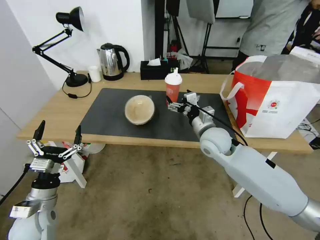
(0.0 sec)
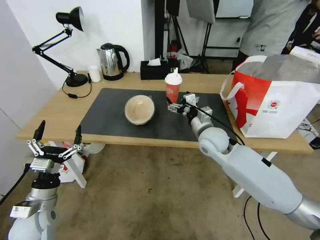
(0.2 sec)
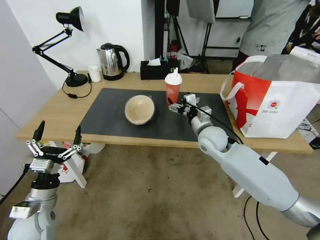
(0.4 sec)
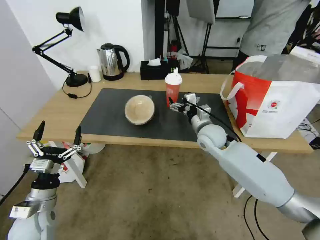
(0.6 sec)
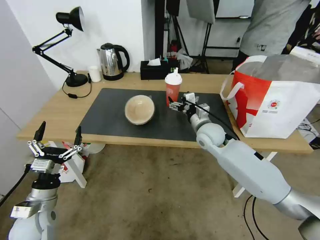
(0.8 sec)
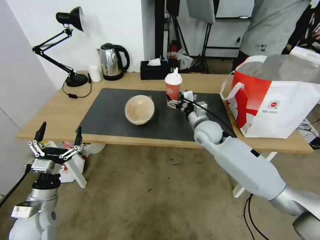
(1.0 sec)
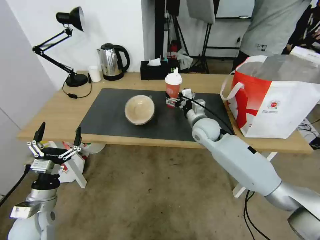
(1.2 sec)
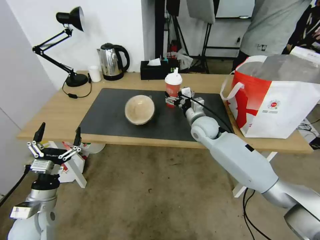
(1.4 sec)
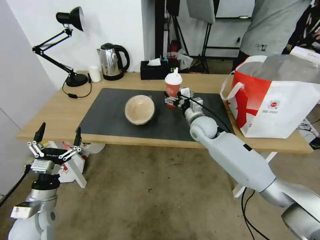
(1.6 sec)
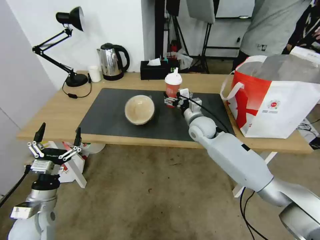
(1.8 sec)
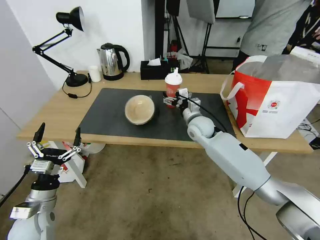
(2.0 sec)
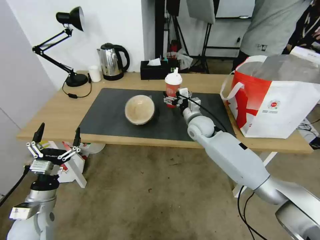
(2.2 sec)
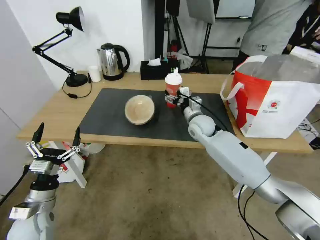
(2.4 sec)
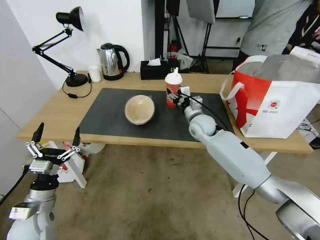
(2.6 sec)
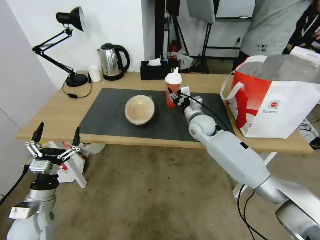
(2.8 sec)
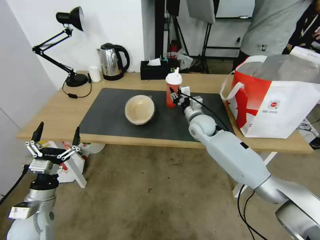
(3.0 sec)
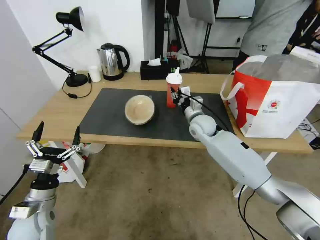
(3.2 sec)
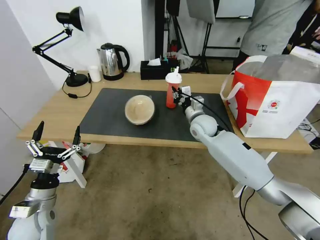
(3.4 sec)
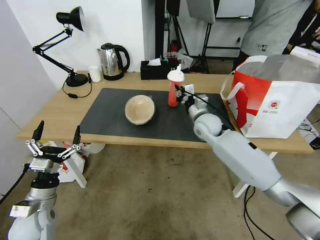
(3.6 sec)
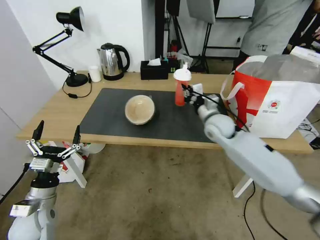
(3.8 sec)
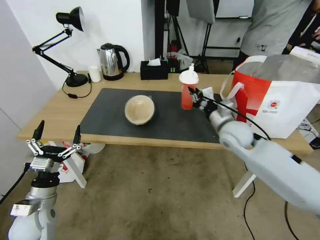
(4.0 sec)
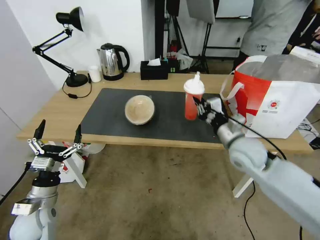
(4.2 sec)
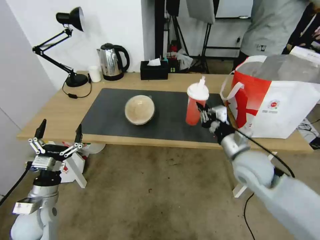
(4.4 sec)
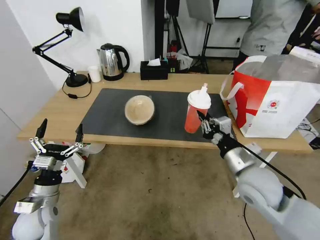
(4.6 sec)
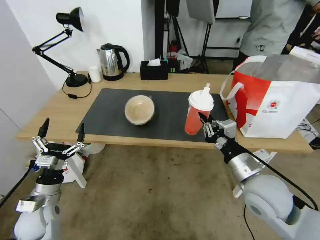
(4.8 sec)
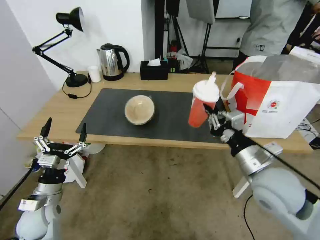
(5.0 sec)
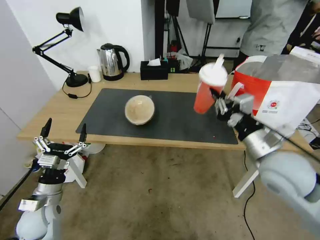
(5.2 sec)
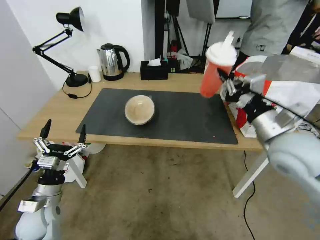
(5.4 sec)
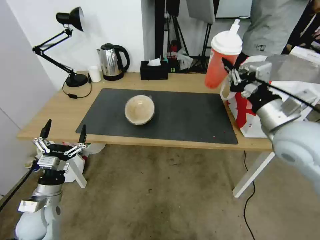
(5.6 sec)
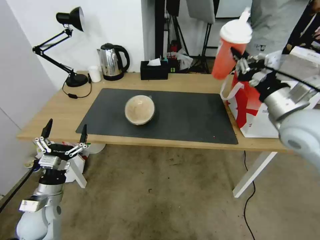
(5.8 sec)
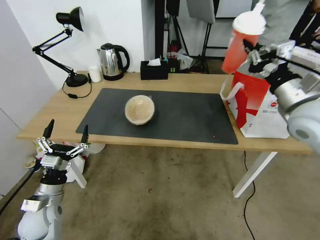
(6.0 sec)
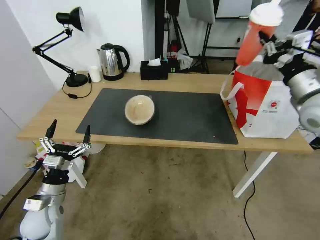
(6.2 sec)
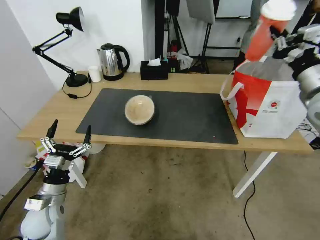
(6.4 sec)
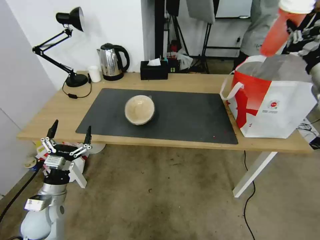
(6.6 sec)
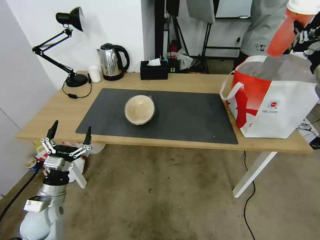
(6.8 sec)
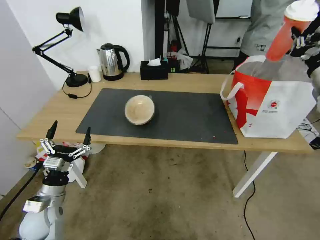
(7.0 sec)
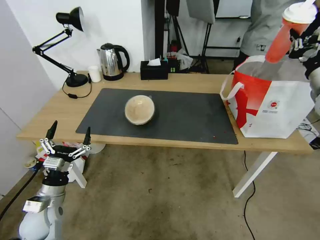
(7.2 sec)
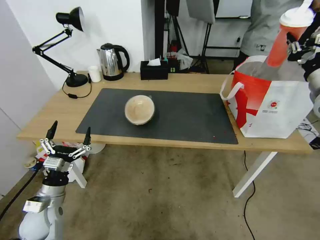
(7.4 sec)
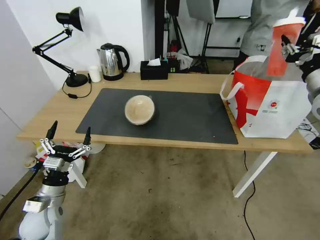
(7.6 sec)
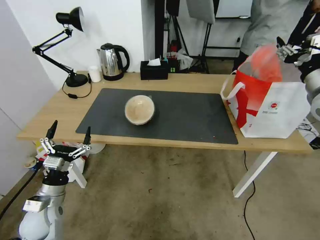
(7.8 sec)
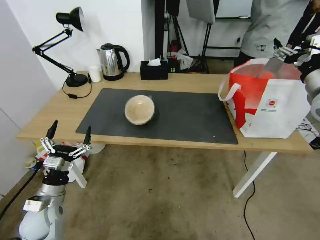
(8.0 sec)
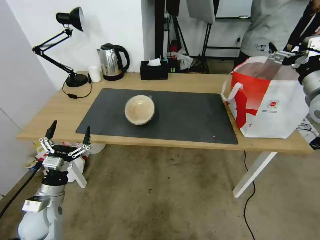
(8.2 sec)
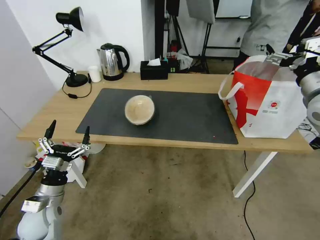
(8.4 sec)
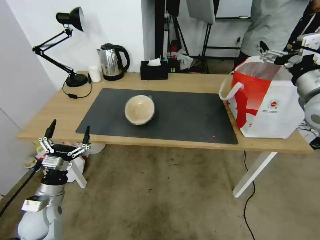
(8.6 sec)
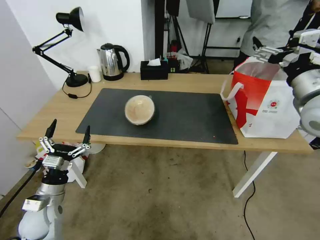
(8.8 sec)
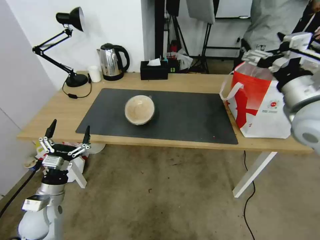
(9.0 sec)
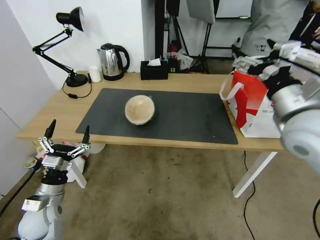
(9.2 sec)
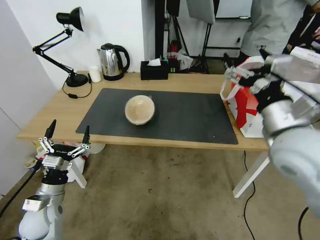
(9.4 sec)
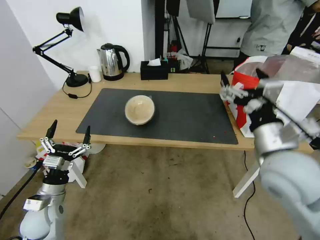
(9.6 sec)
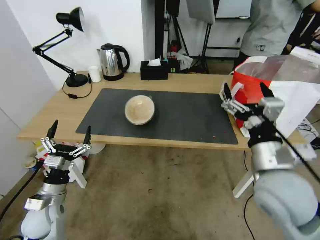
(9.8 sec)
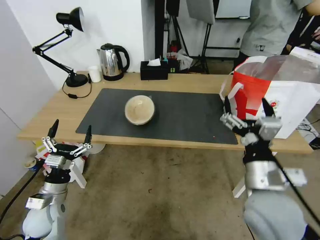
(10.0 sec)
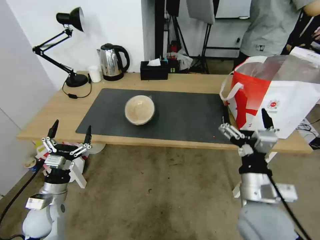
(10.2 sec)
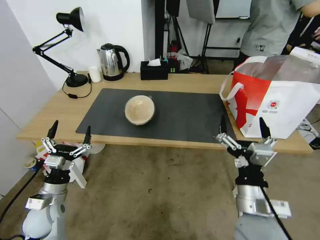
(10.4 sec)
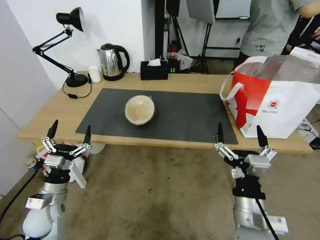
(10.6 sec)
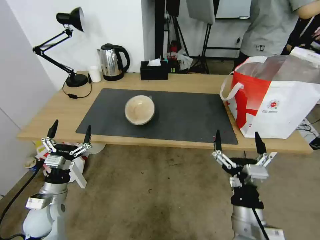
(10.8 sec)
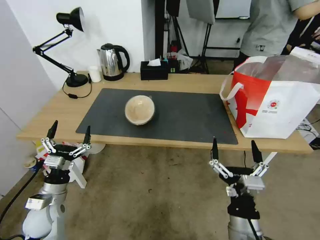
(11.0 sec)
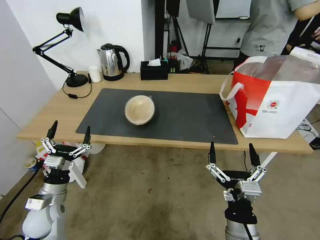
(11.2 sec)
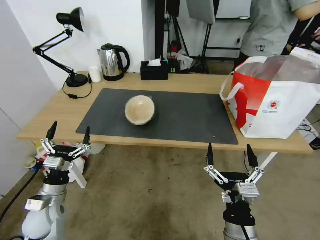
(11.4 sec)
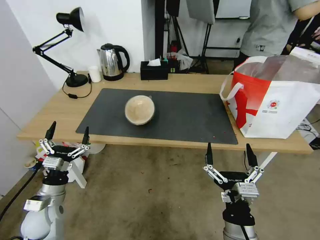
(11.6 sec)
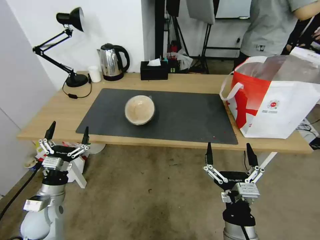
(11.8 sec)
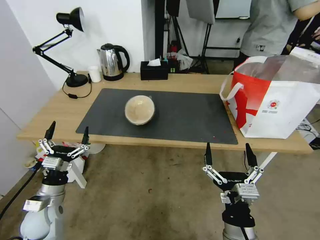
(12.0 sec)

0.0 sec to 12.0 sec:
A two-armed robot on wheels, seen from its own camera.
Task of the whole recording: Pick up the trash from the table and place it into the takeout bag.
0.0 sec to 1.6 sec: The right gripper heads forward, covering approximately 10 cm.
1.6 sec to 3.0 sec: The right gripper closes its fingers.
3.0 sec to 4.4 sec: The right gripper moves backward and to the right, roughly 20 cm.
4.4 sec to 6.0 sec: The right gripper heads upward and to the right, covering some 20 cm.
6.0 sec to 7.6 sec: The right gripper is displaced to the right and forward by approximately 10 cm.
7.6 sec to 9.0 sec: The right gripper heads to the left and backward, covering some 15 cm, and opens.
9.0 sec to 10.4 sec: The right gripper moves downward, backward and to the left, about 30 cm.
10.4 sec to 12.0 sec: The right gripper is displaced backward and downward by about 10 cm.

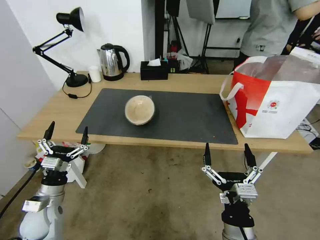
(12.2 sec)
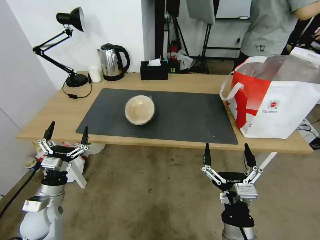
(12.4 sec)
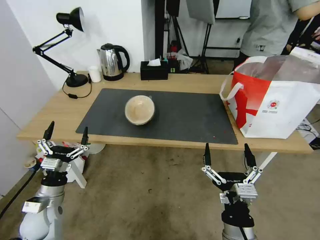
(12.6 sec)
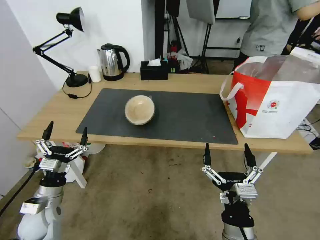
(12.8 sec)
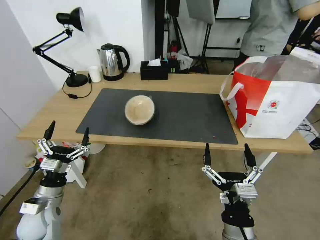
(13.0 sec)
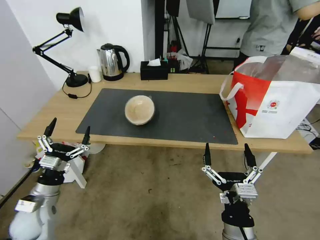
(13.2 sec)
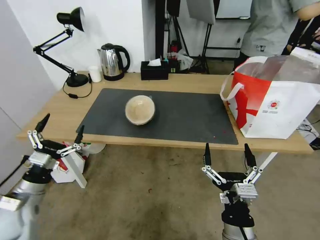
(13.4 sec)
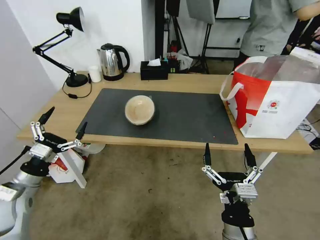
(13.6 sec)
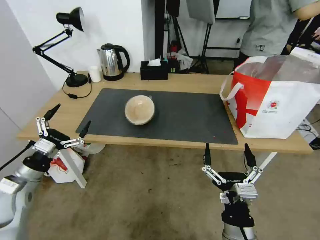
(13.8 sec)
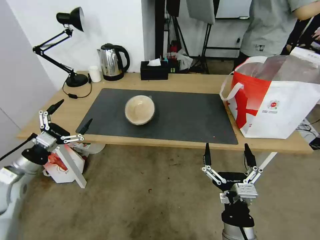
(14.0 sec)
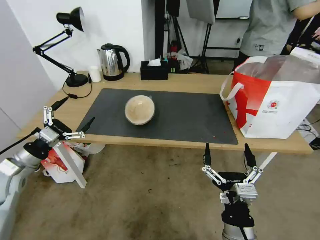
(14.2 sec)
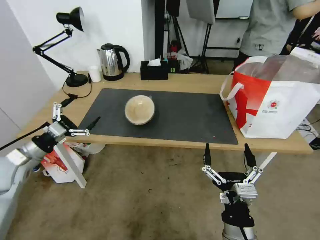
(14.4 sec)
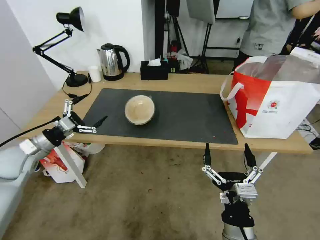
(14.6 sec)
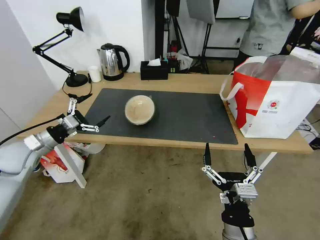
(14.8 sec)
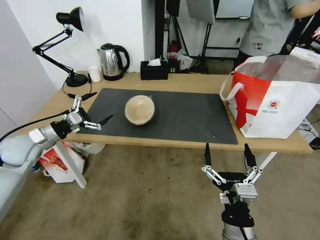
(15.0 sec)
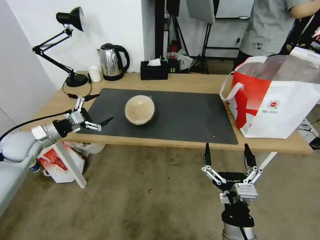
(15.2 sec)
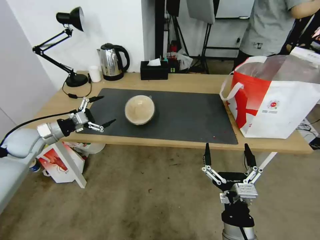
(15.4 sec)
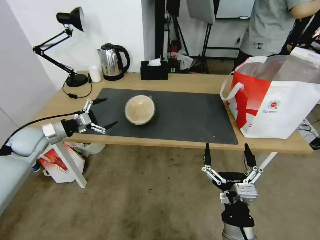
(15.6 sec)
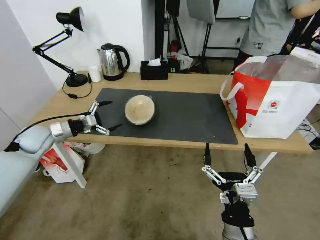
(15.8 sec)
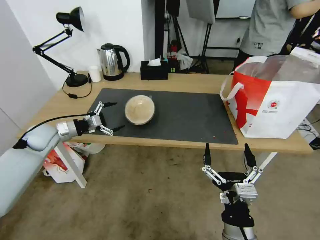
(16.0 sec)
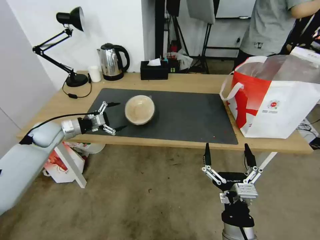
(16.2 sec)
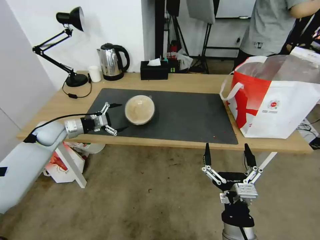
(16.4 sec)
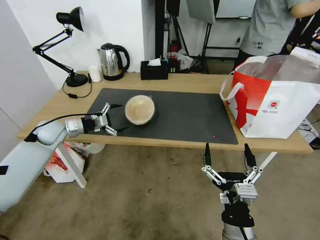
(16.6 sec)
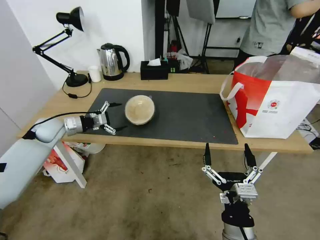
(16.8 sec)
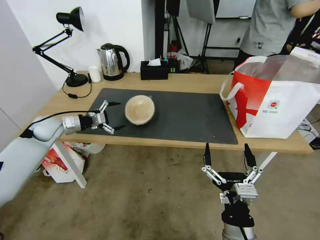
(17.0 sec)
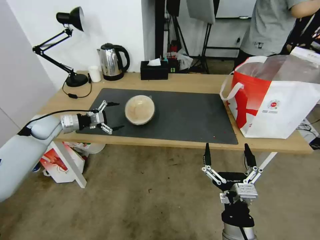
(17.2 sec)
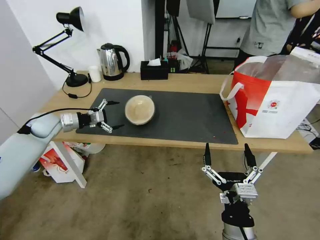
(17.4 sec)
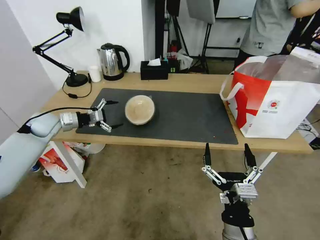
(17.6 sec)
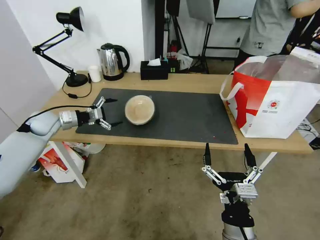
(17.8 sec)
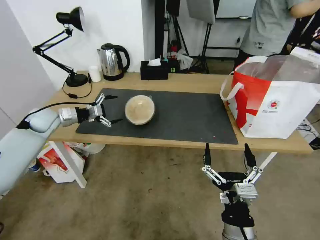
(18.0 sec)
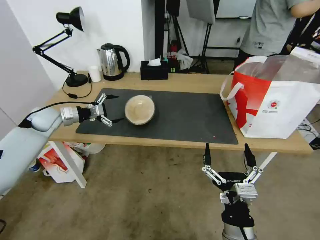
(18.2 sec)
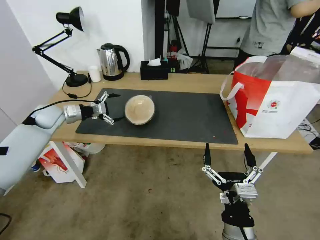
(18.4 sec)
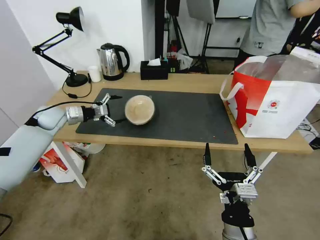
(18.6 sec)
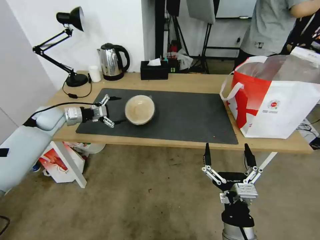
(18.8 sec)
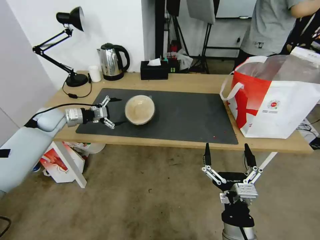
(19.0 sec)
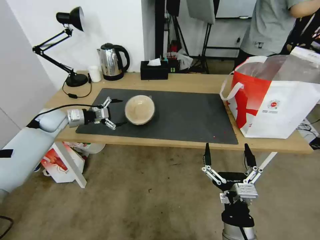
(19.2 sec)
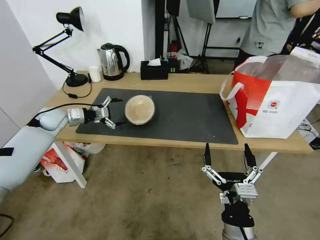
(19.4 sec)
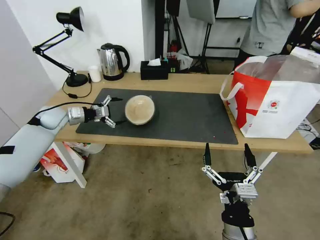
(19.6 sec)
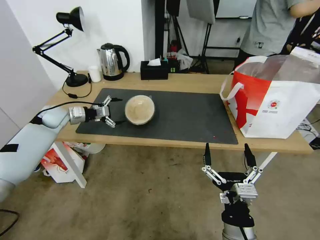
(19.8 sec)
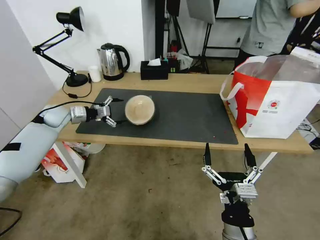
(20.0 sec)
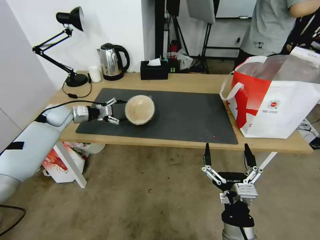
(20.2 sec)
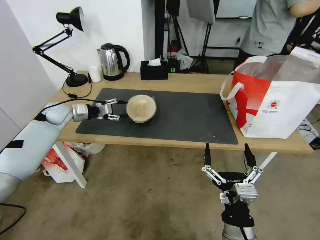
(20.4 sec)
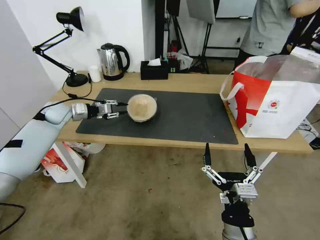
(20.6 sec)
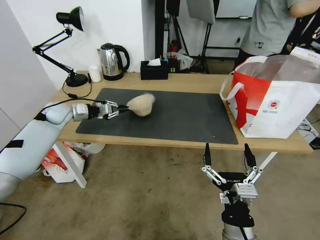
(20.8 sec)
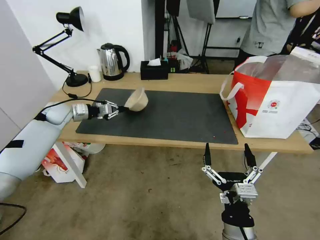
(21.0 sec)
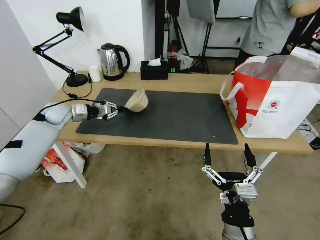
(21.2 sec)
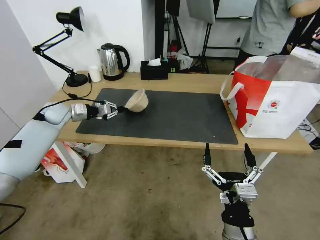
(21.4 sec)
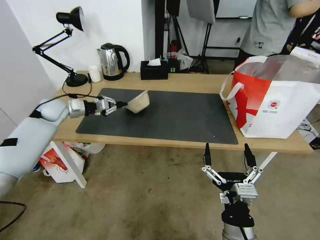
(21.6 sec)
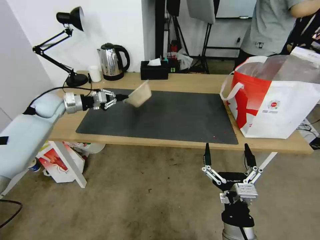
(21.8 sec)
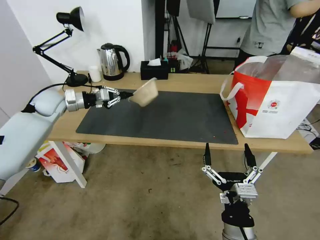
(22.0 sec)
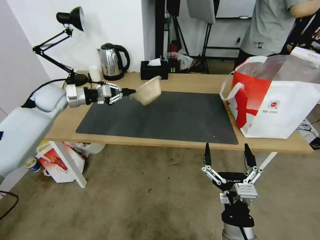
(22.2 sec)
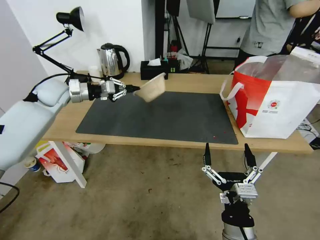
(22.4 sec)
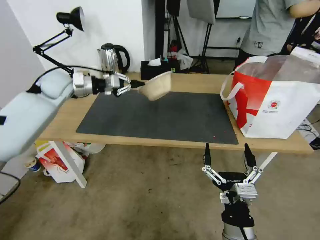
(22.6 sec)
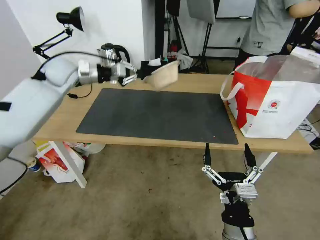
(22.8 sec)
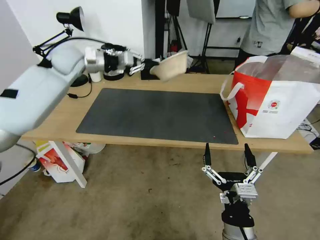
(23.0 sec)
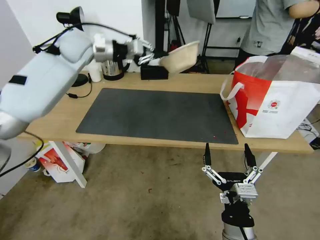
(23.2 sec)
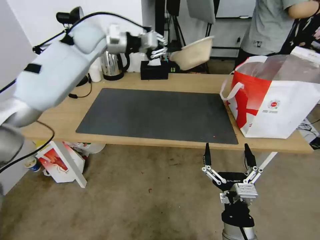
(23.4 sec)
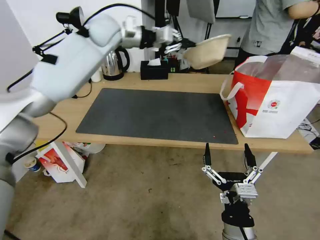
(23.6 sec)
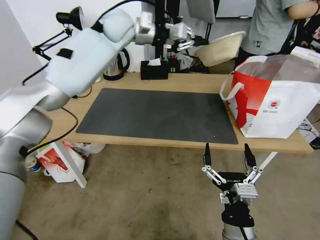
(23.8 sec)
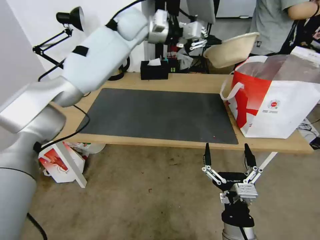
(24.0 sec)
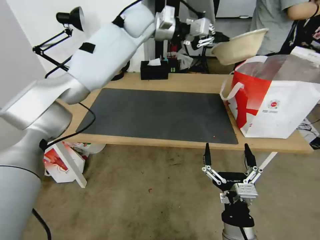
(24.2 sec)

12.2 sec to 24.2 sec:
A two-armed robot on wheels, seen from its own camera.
Task of the whole recording: Pick up the trash from the table and place it into the takeout bag.
12.2 sec to 13.8 sec: The left gripper heads upward and to the left, covering approximately 10 cm.
13.8 sec to 15.2 sec: The left gripper goes roughly 15 cm forward.
15.2 sec to 16.6 sec: The left gripper travels forward by about 10 cm.
16.6 sec to 18.2 sec: The left gripper shifts by about 5 cm.
18.2 sec to 19.8 sec: The grippers make only small movements.
19.8 sec to 21.2 sec: The left gripper closes up.
21.2 sec to 22.6 sec: The left gripper is displaced upward and to the right by approximately 15 cm.
22.6 sec to 24.2 sec: The left gripper travels to the right and upward by some 30 cm.
